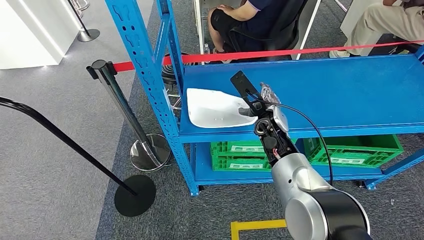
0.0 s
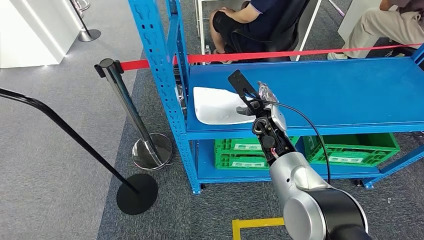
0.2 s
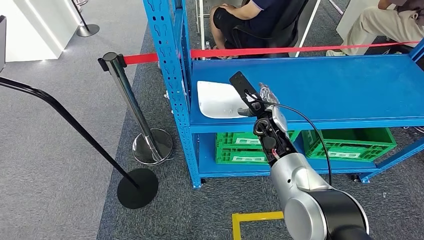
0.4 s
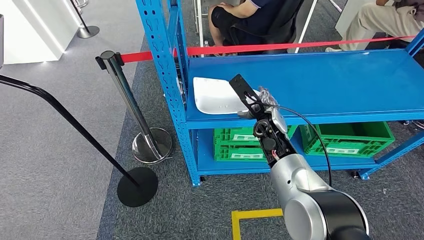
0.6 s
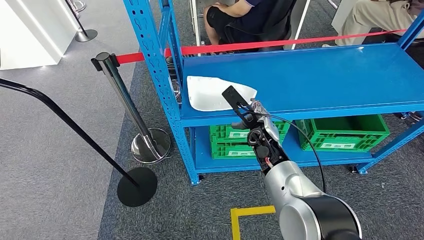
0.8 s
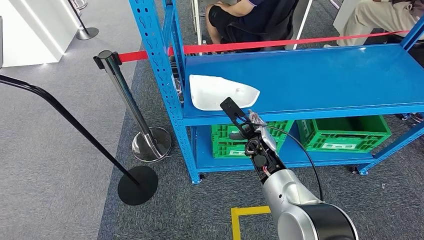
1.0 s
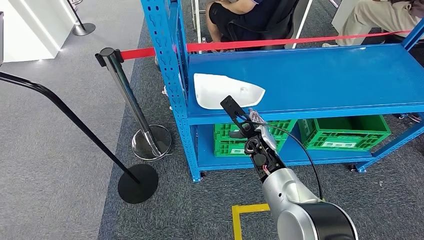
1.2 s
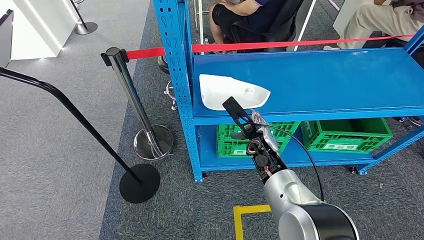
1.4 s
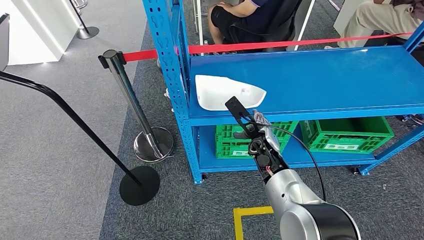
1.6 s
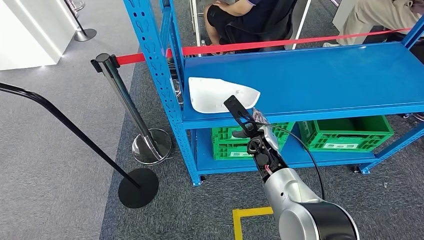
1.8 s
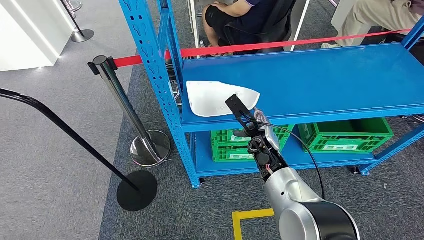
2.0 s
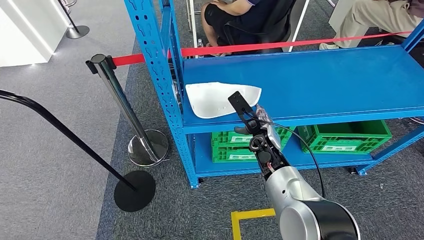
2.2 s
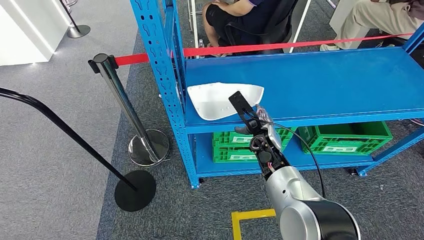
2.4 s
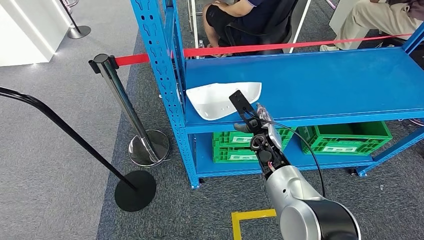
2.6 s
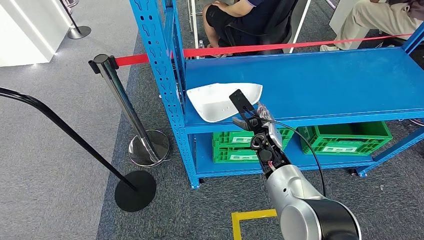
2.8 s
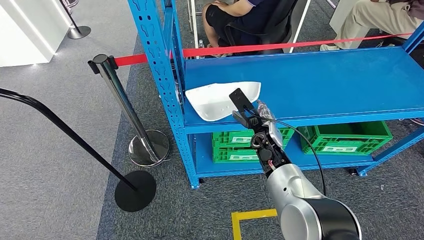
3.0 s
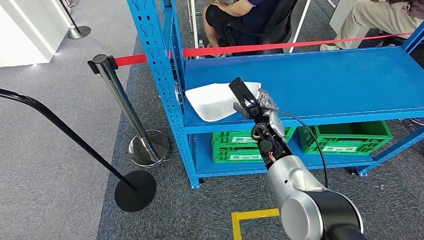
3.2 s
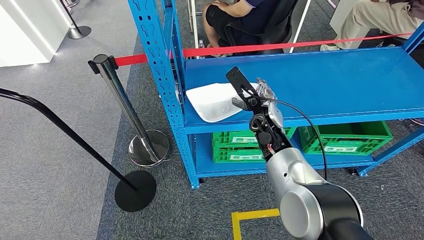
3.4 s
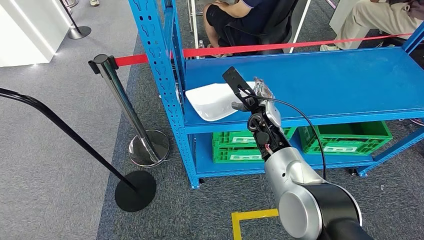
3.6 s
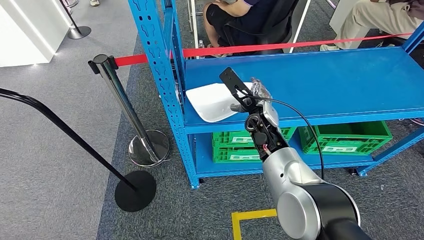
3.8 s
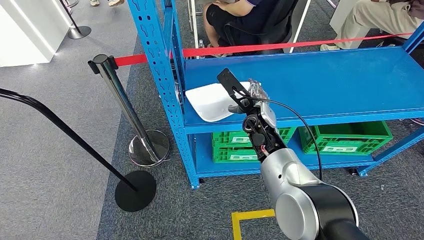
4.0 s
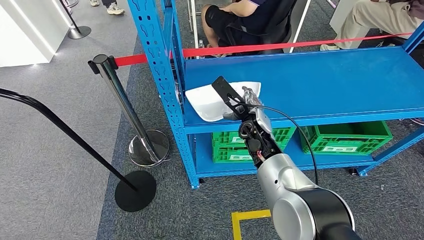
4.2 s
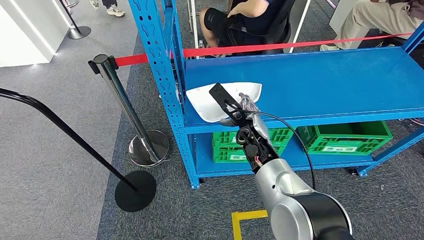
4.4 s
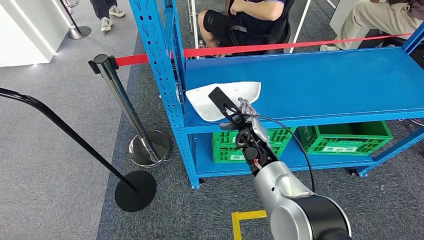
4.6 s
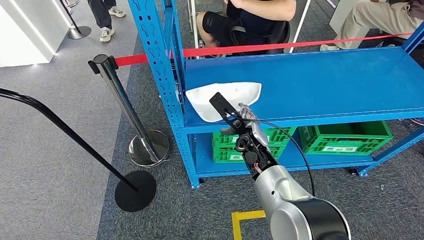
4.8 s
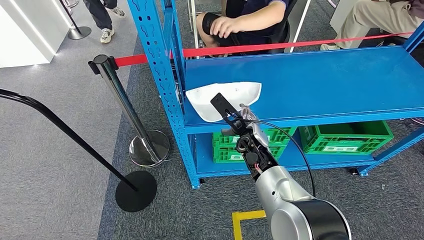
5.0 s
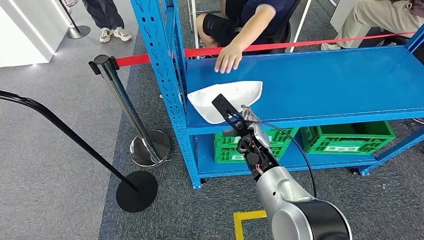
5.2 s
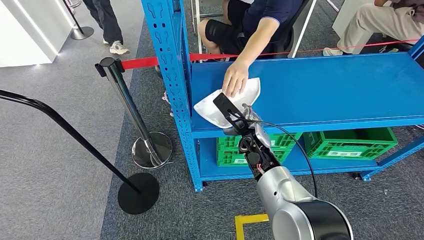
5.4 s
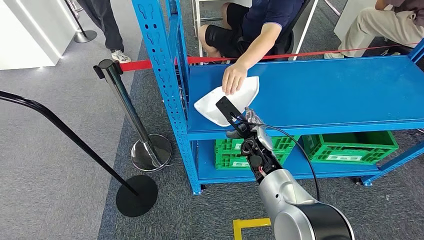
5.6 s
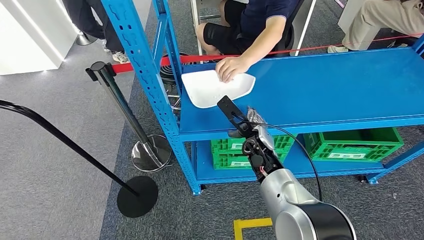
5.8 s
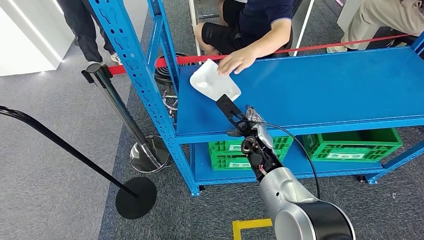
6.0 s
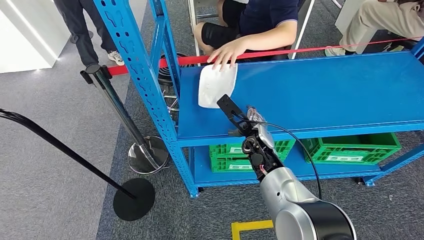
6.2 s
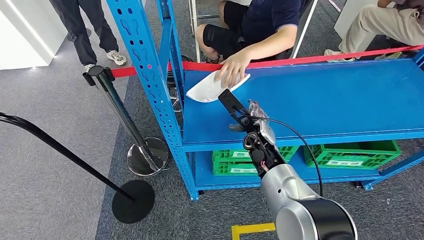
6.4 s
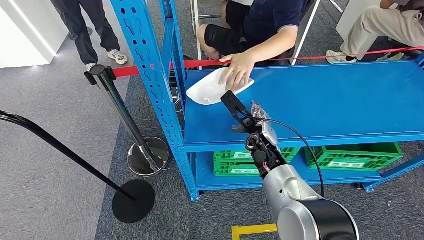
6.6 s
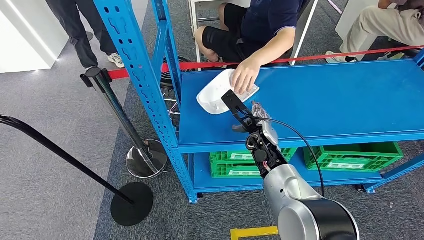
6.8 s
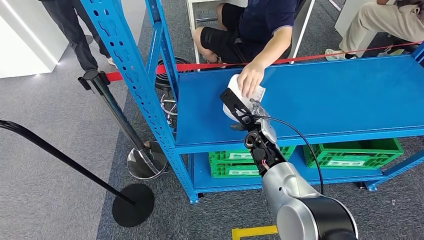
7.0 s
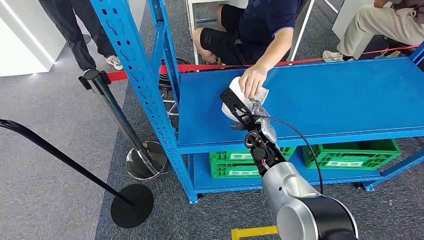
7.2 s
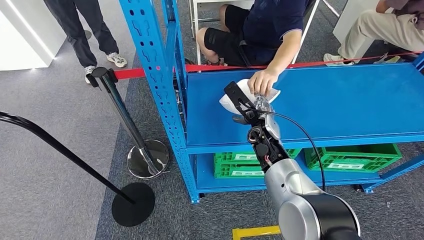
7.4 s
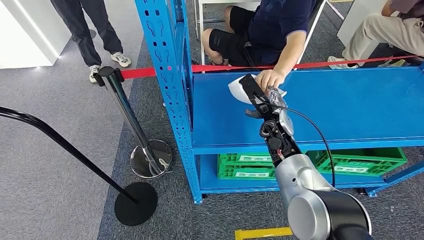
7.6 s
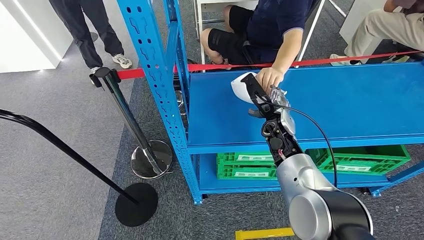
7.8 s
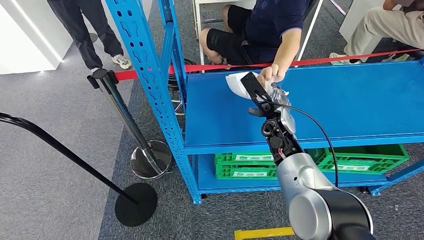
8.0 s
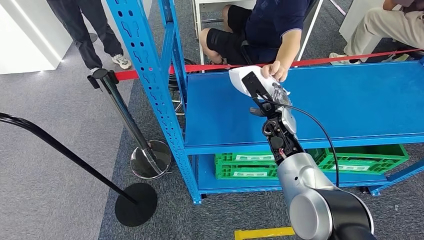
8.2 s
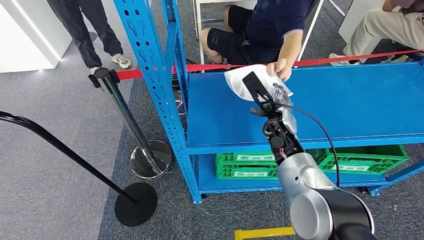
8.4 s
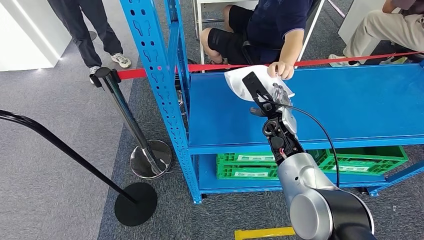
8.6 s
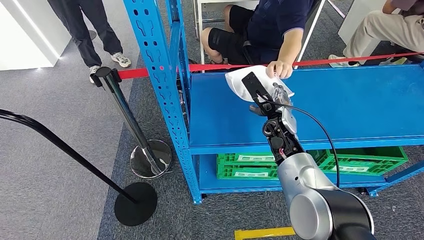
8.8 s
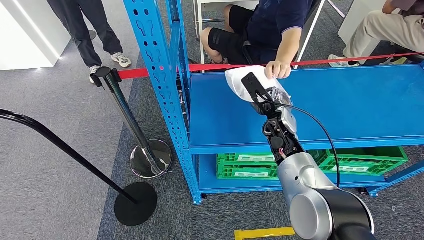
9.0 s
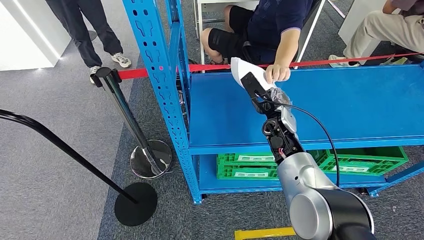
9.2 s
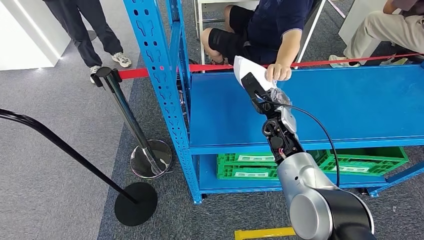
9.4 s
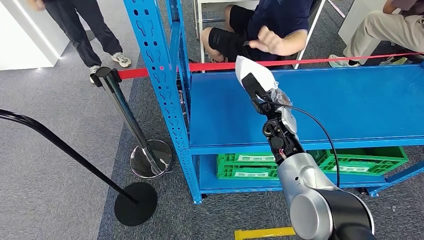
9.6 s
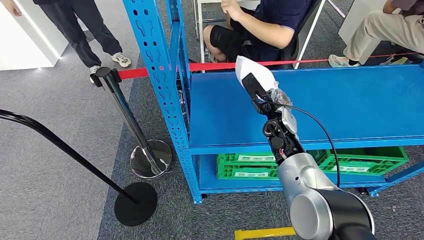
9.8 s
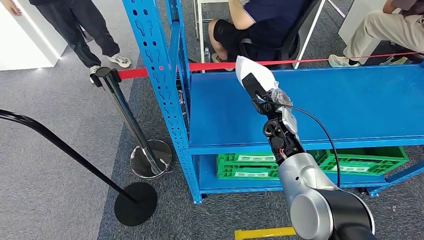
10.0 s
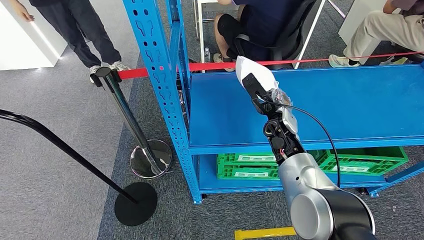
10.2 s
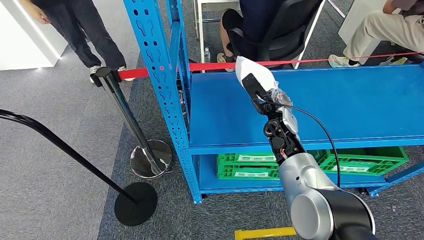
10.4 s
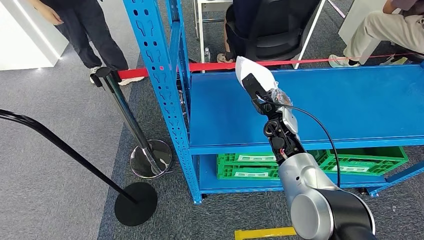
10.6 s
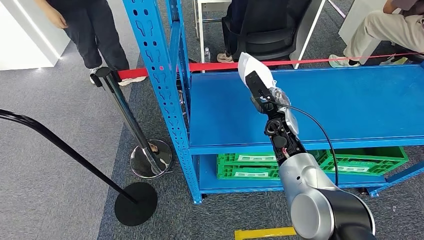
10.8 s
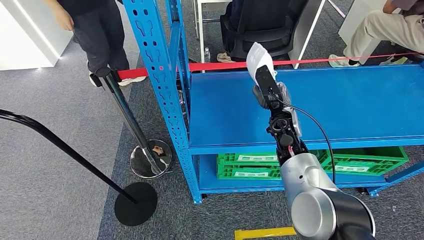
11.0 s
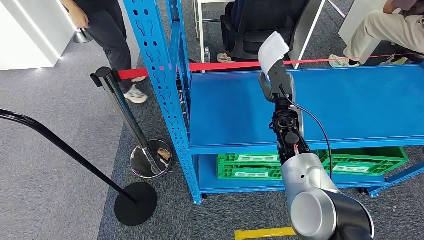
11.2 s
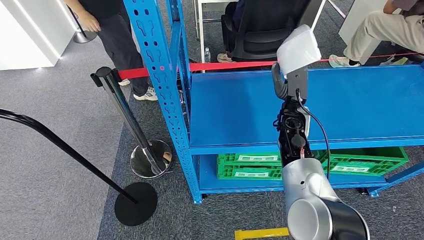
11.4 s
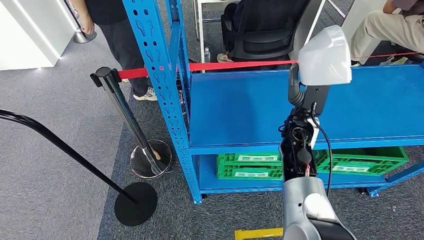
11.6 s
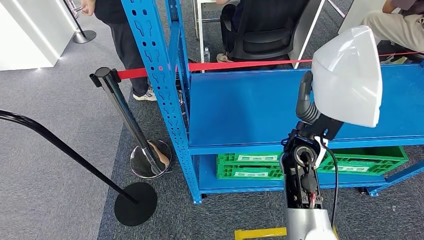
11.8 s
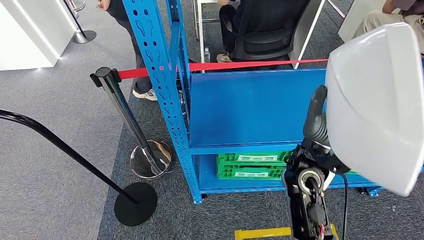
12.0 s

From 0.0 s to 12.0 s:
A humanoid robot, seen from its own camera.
From 3.0 s to 4.4 s: The right hand ends up about 5 cm from where it was.
From 7.6 s to 10.4 s: Both hands stay about where they are.

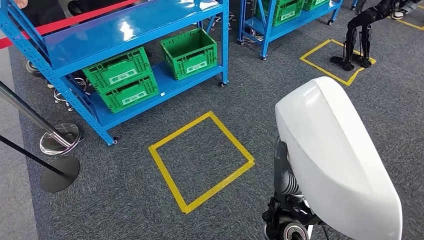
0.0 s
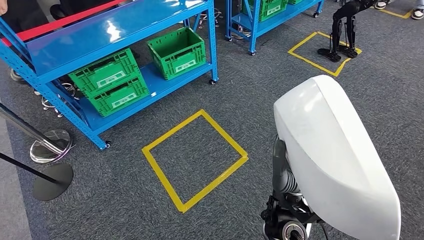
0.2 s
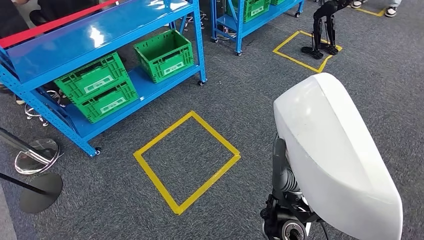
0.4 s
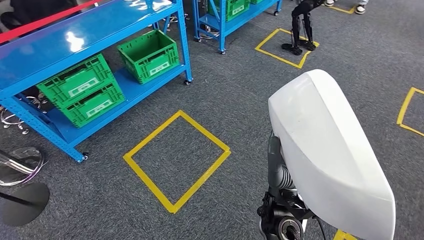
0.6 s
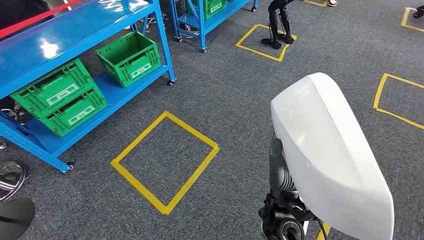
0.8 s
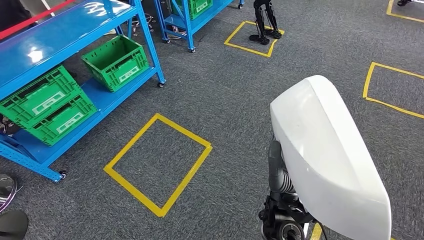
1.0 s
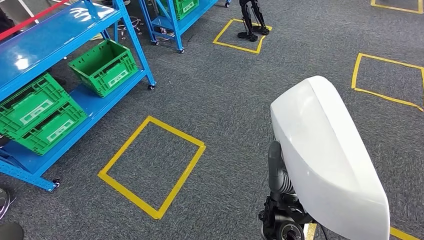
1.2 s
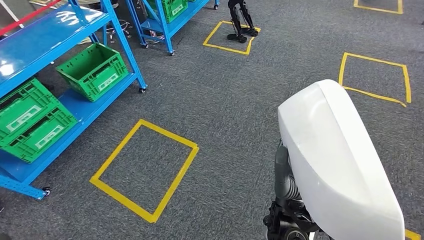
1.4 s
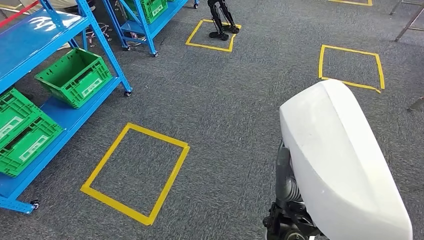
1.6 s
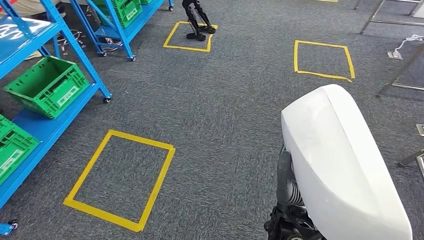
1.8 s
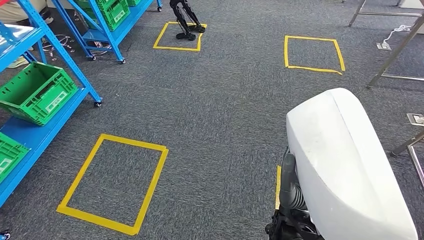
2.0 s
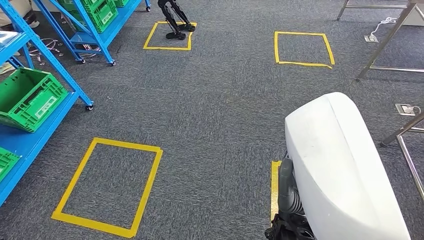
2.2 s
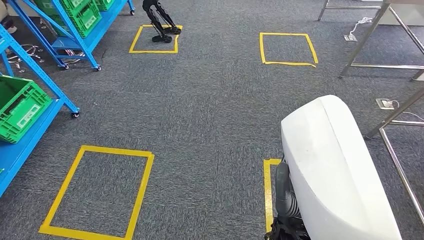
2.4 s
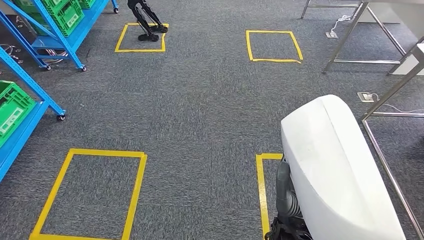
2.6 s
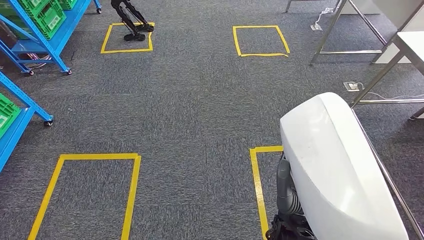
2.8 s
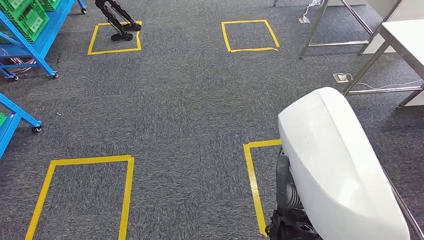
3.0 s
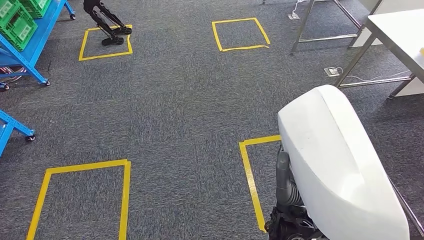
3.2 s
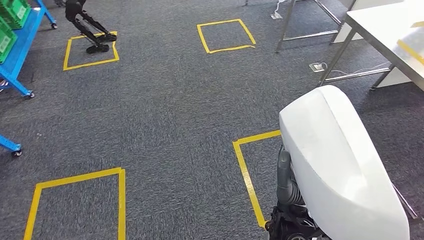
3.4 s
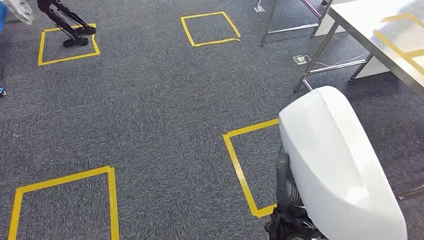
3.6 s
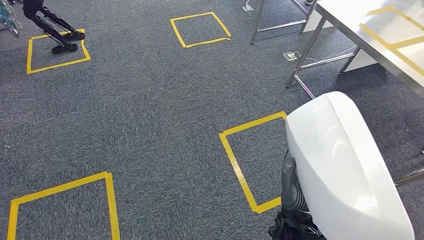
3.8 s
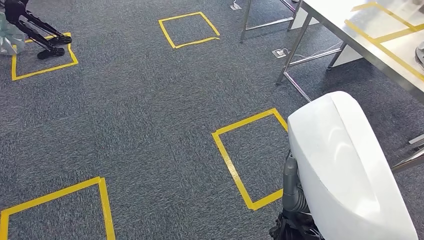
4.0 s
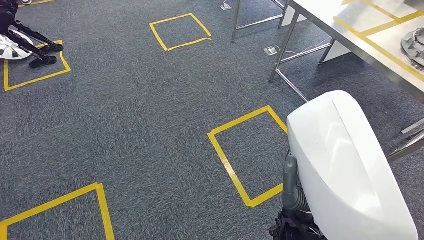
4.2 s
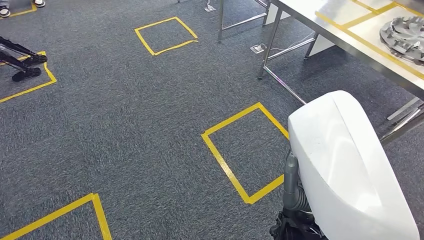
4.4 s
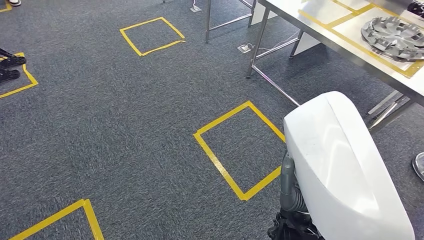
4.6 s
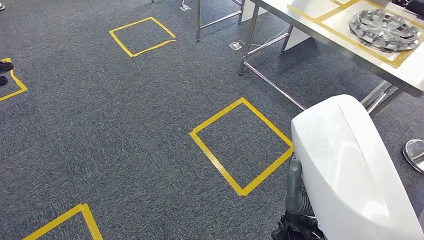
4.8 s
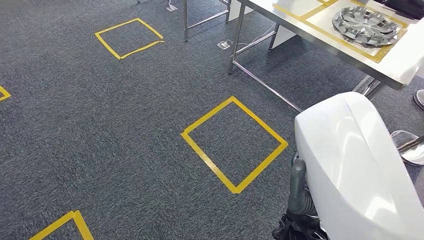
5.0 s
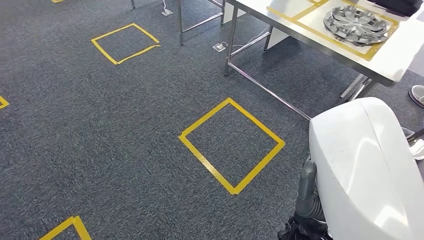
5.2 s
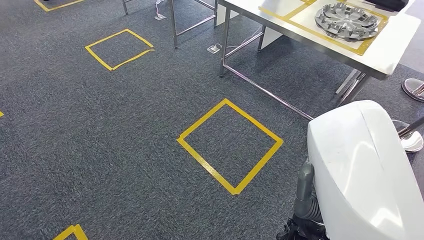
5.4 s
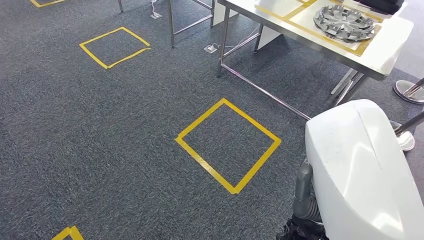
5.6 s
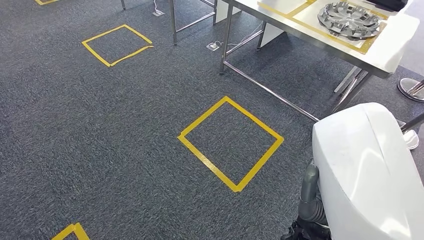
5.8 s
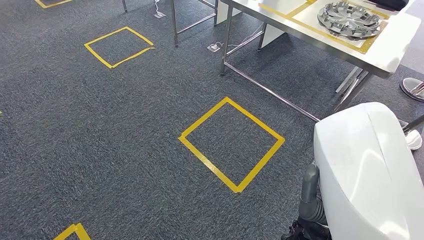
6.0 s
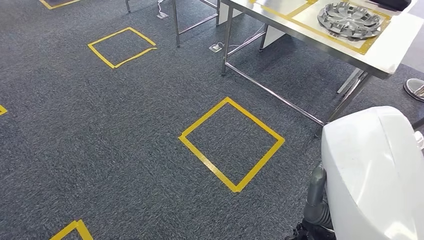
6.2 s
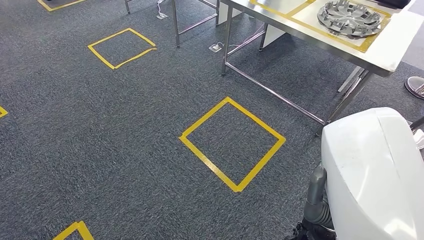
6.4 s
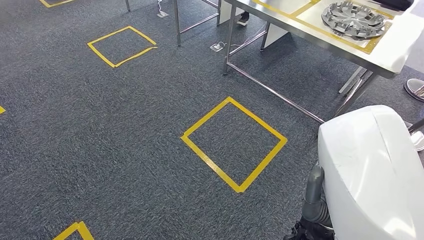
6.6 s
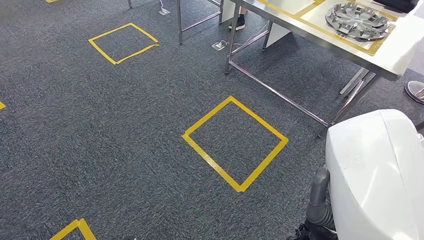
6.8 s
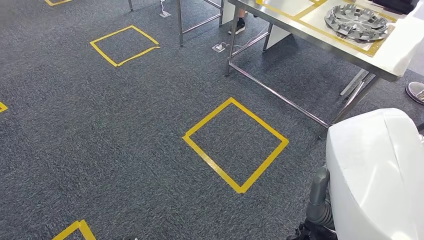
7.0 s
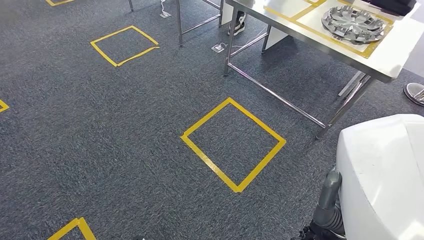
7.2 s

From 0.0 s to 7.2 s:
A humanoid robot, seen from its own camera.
From 5.8 s to 7.2 s: The hands stay close to where they were, moving slightly.
